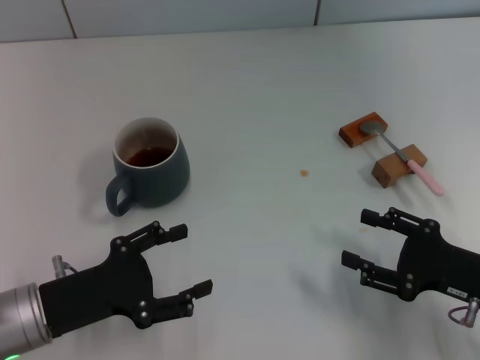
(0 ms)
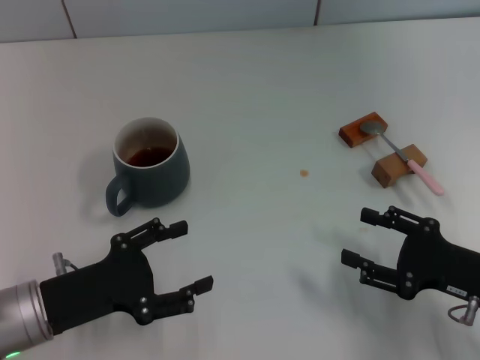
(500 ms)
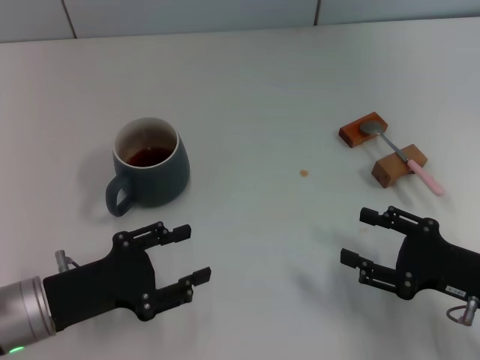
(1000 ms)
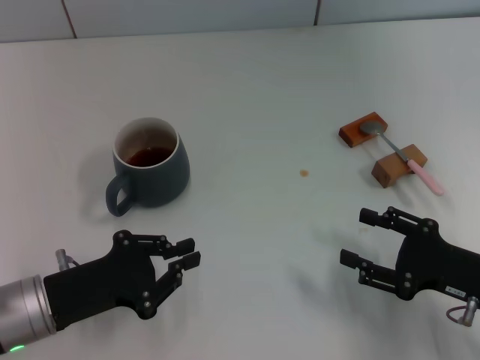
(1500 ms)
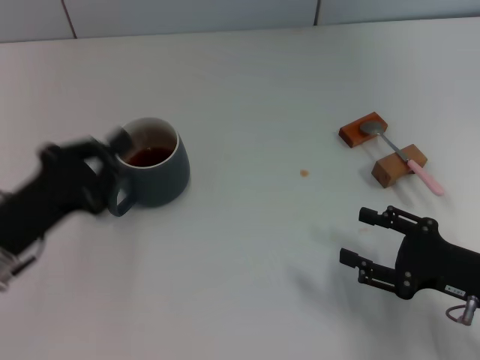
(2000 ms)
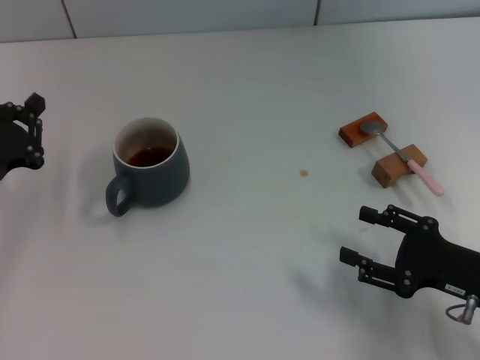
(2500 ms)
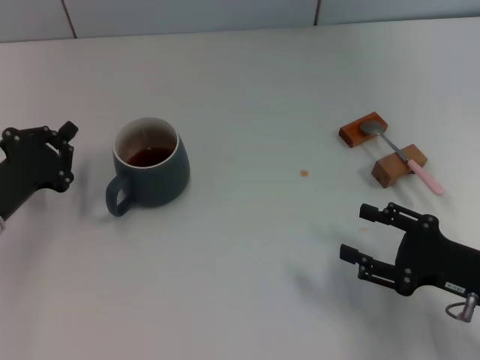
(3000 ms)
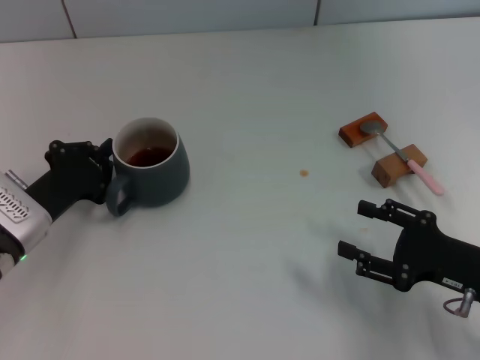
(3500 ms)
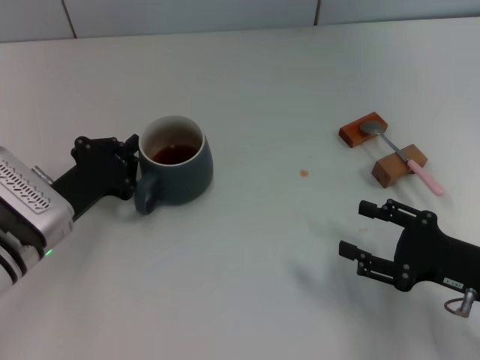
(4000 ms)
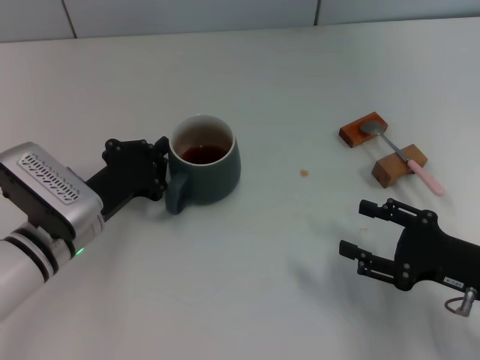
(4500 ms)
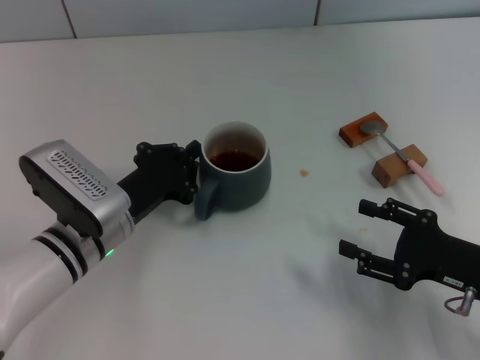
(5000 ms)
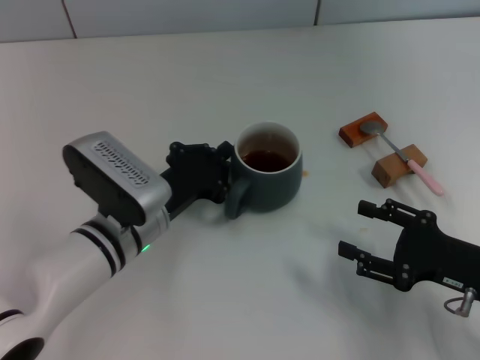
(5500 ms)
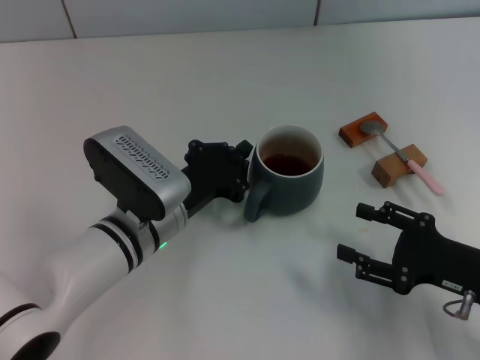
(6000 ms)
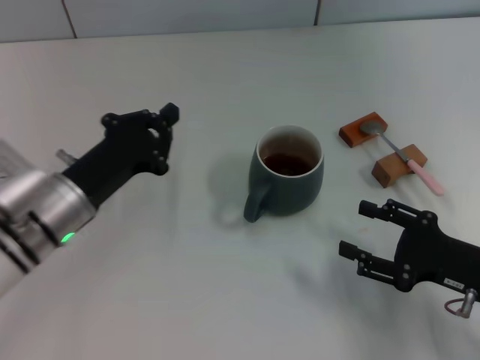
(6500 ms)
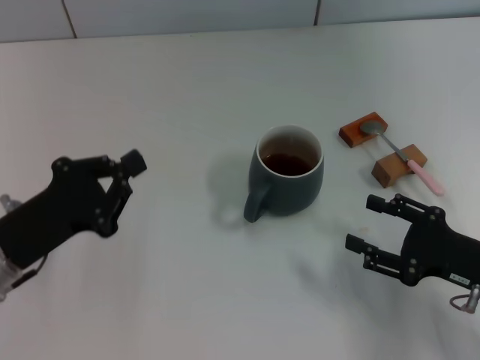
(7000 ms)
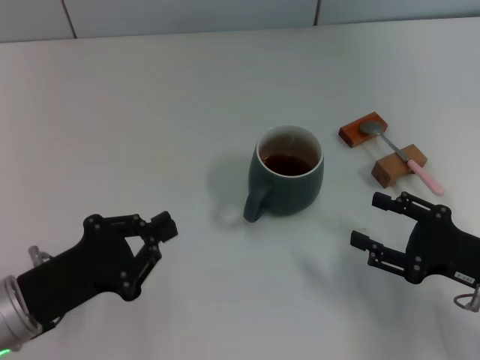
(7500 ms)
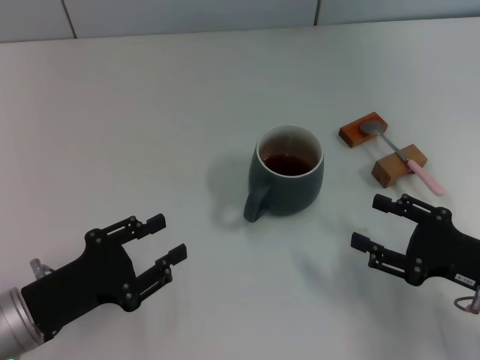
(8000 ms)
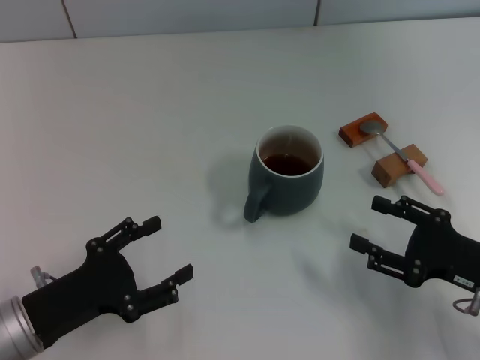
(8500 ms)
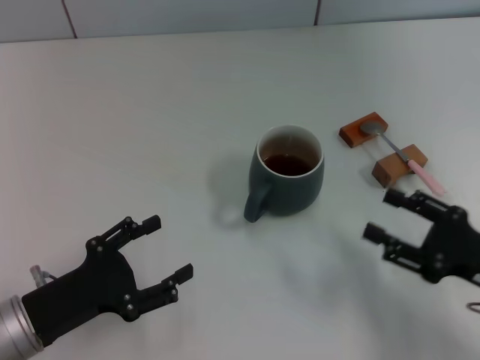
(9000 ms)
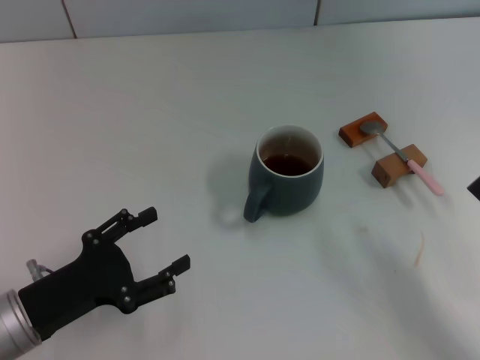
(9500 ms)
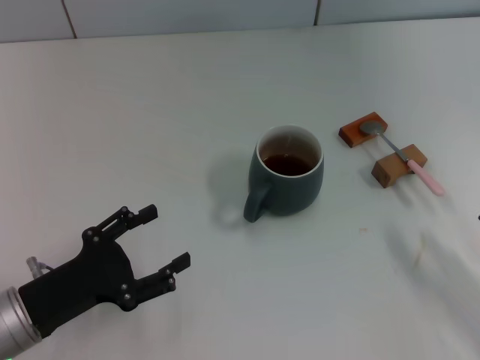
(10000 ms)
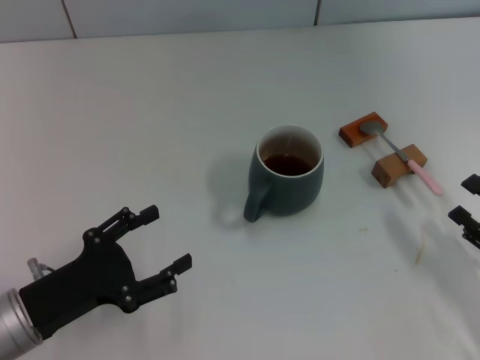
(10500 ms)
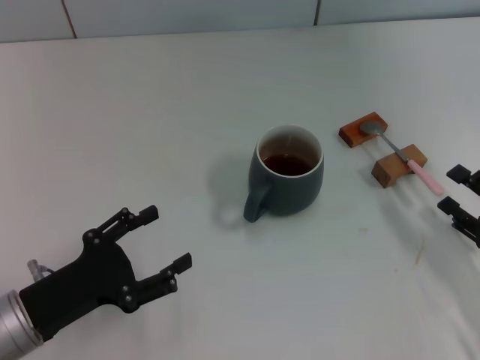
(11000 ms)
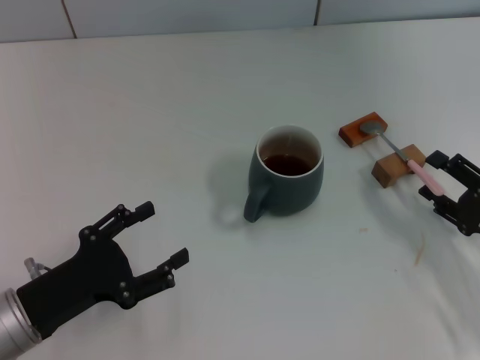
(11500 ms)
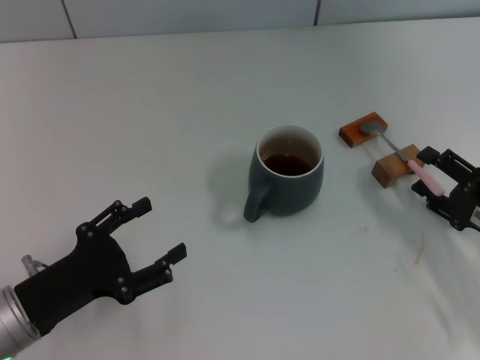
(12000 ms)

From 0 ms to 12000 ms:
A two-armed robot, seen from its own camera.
Task of the whole recording: Move the grey cup to the center, lift the pink spoon, stir it three times in the cup, and put the spoon into the cup.
Step, from 0 ms to 6000 ms: Move the cup with coffee to the center of view with the left gripper.
From 0 ms to 2000 ms: The left gripper closes.
From 2000 ms to 4000 ms: The left gripper goes about 5 cm forward.
From 4000 ms to 6000 ms: The left gripper is displaced to the right by about 10 cm.
From 6000 ms to 8000 ms: The left gripper travels to the left and backward by roughly 15 cm.
From 8000 ms to 10000 ms: The right gripper travels to the right and backward by approximately 10 cm, while the left gripper opens its fingers.
From 10000 ms to 12000 ms: The right gripper heads forward, covering approximately 10 cm.

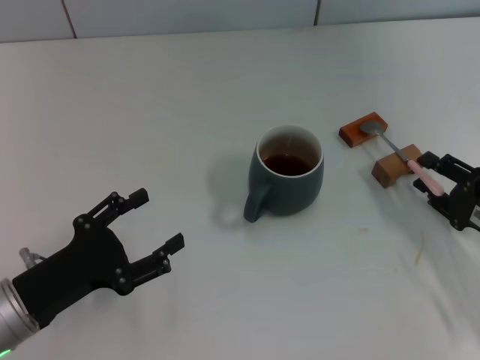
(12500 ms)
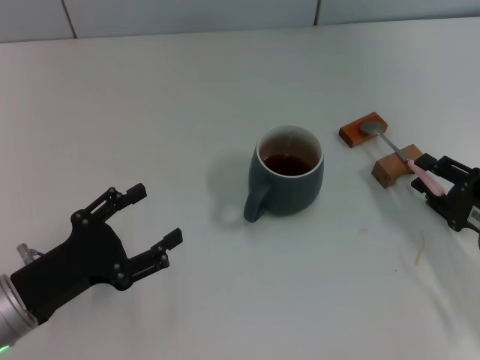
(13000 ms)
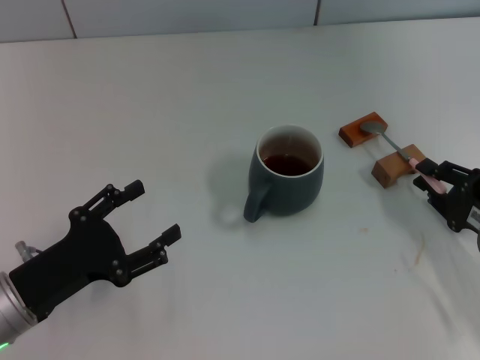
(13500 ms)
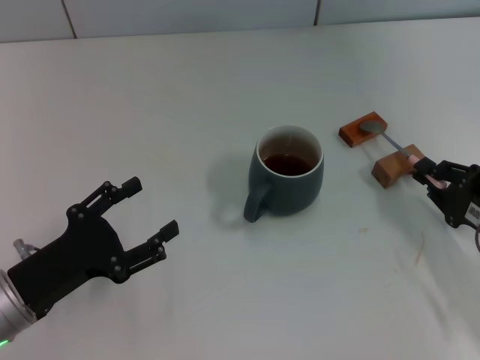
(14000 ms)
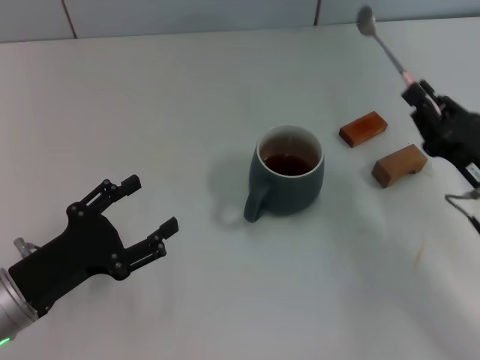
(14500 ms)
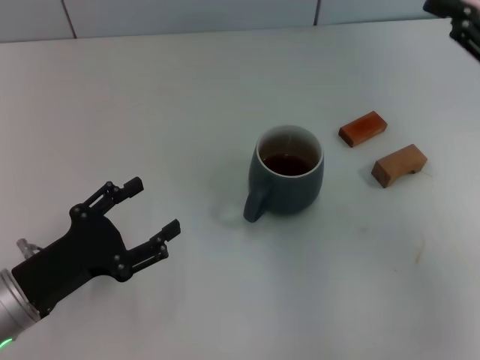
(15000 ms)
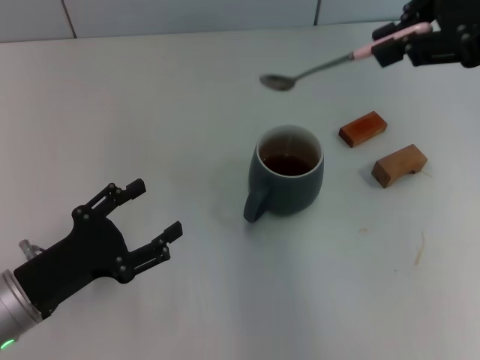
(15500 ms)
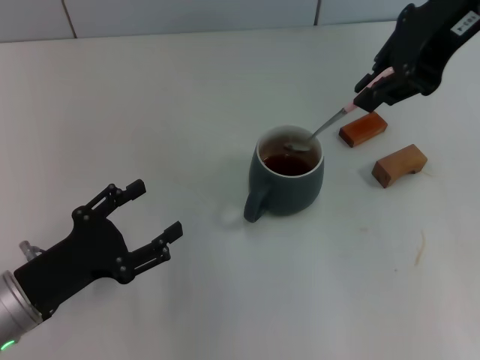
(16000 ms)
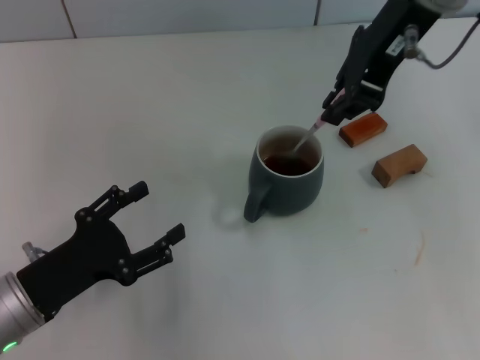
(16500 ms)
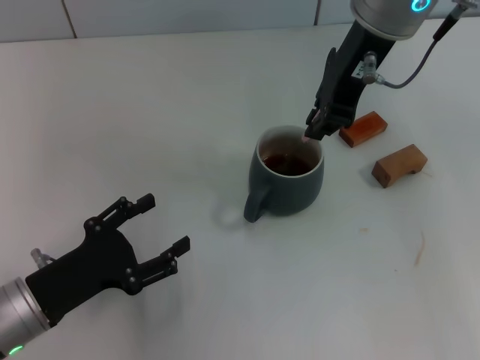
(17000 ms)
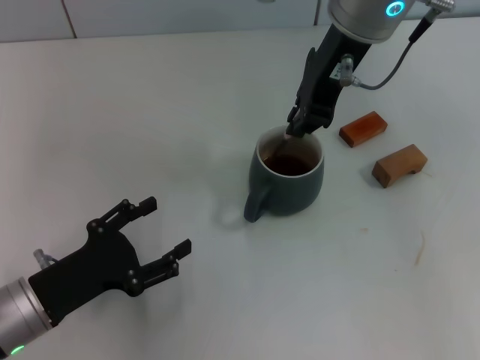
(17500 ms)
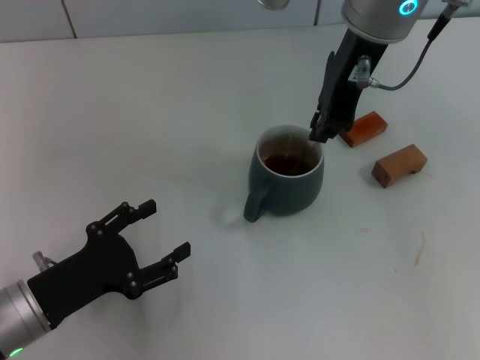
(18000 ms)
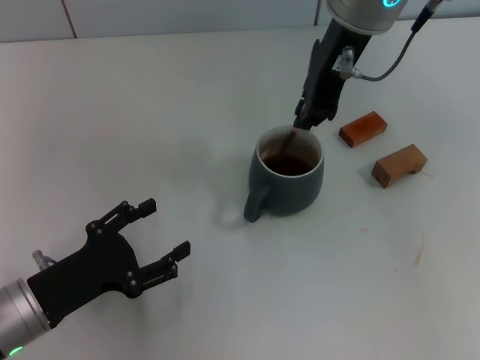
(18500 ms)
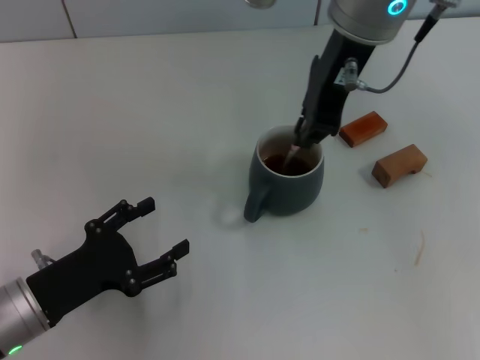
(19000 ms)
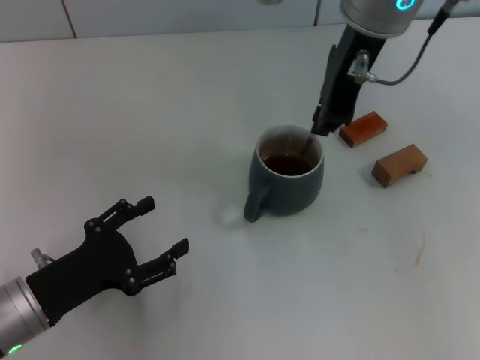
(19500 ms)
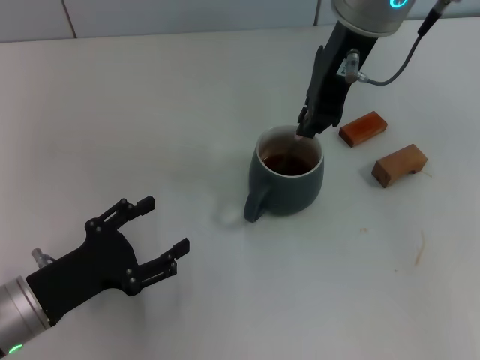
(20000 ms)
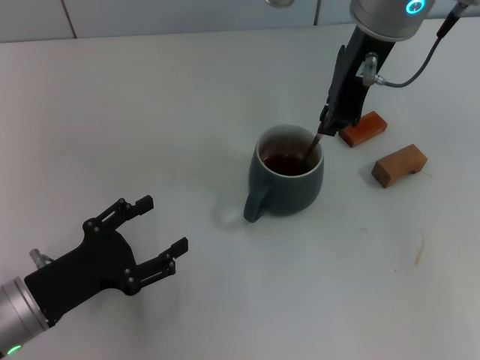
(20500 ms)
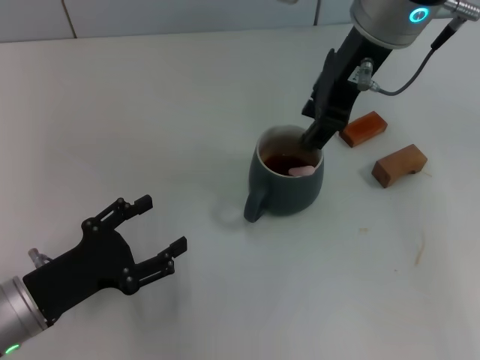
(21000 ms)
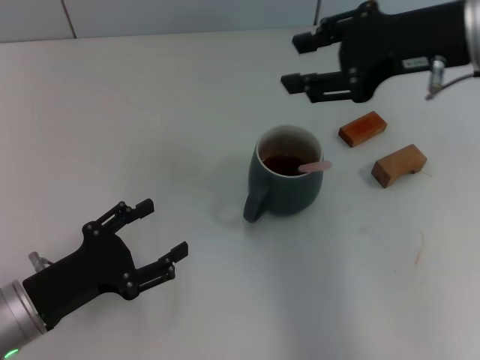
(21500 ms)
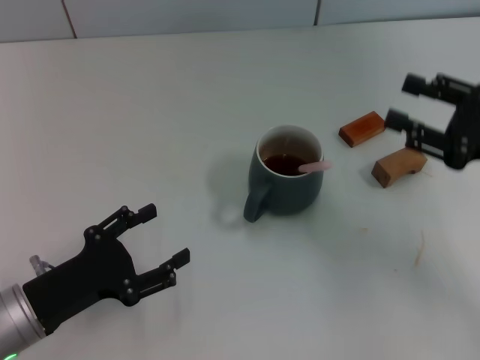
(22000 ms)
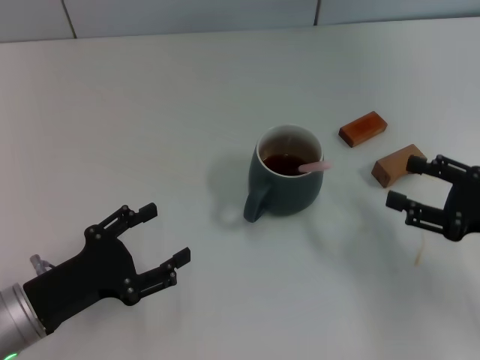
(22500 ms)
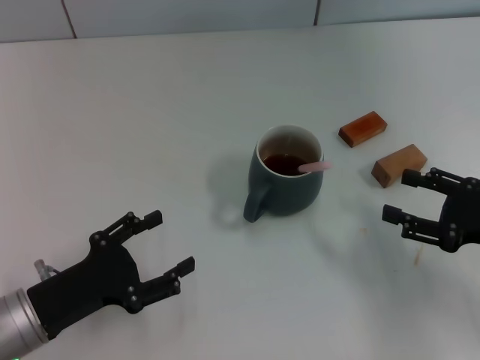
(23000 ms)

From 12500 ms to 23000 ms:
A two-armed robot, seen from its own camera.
Task of the whole recording: Move the grey cup to the center, lift the pink spoon, stir it three times in the cup, and put the spoon into the cup.
Step, from 14500 ms to 21000 ms: Stir the coffee in the cup with the right gripper.
From 12500 ms to 14500 ms: The right gripper heads to the left, covering roughly 5 cm, and closes up.
From 14500 ms to 16500 ms: The right gripper is displaced upward, forward and to the left by approximately 30 cm.
From 16500 ms to 19000 ms: The right gripper changes place by about 5 cm.
From 19000 ms to 21000 ms: The right gripper opens up.
From 21000 ms to 23000 ms: The right gripper moves to the right, downward and backward, approximately 35 cm, and opens its fingers.
